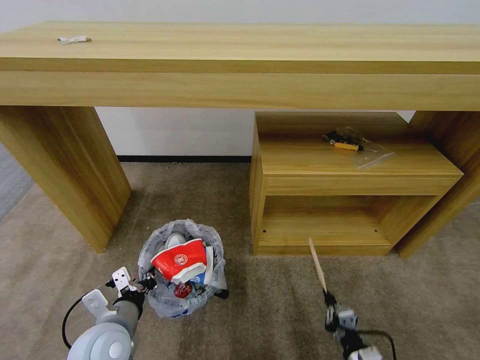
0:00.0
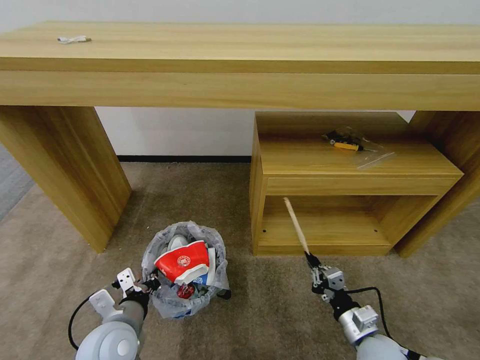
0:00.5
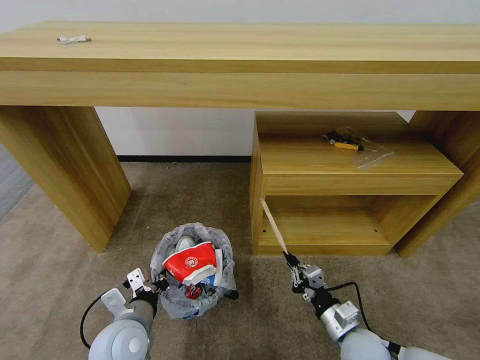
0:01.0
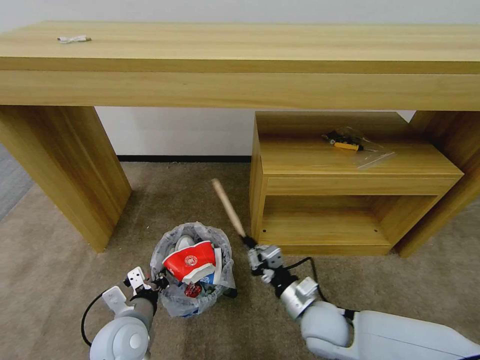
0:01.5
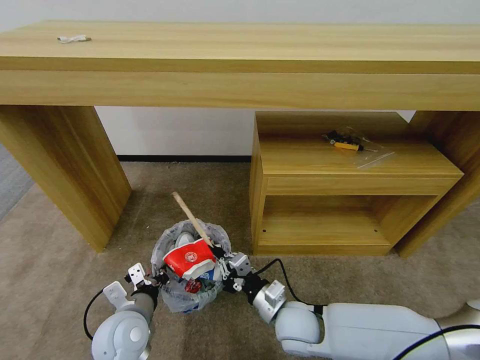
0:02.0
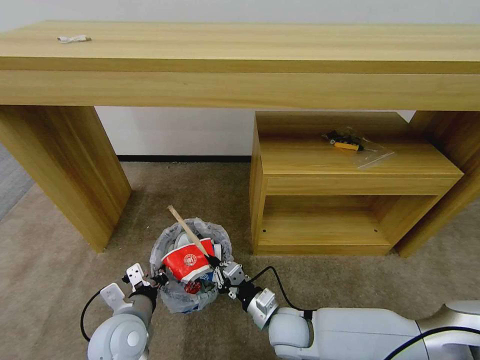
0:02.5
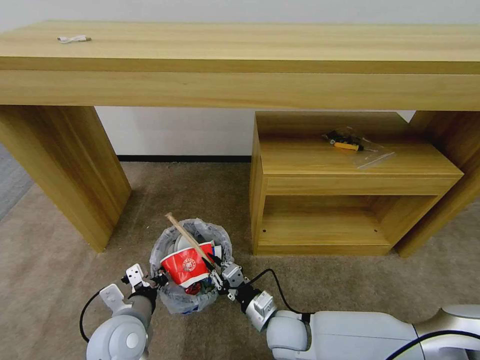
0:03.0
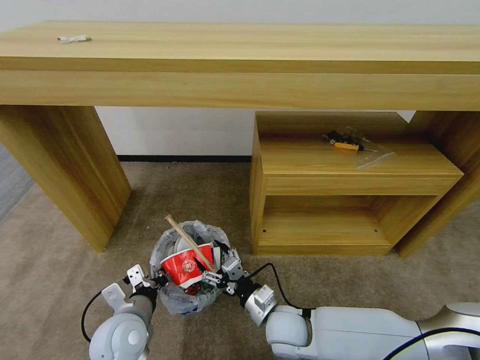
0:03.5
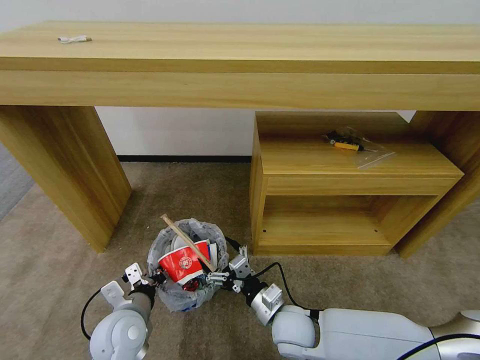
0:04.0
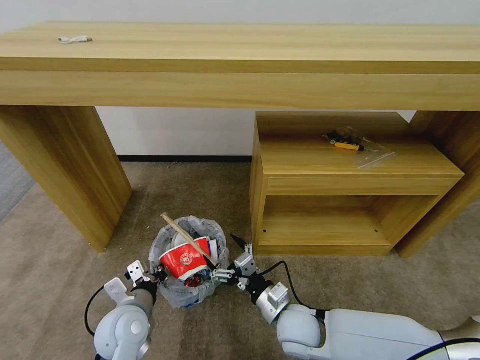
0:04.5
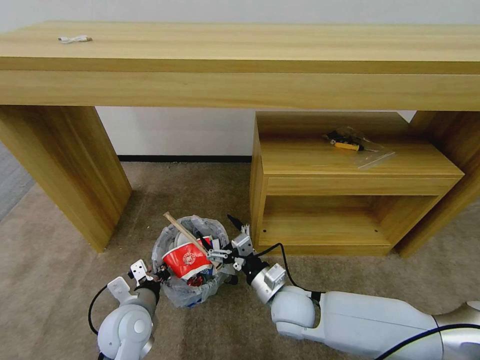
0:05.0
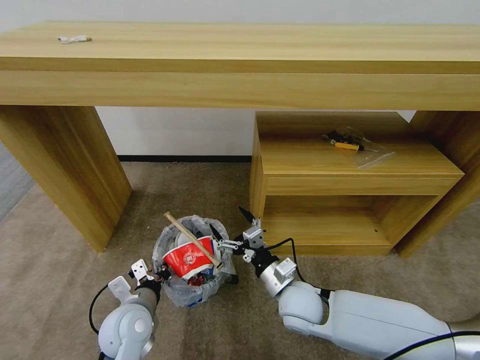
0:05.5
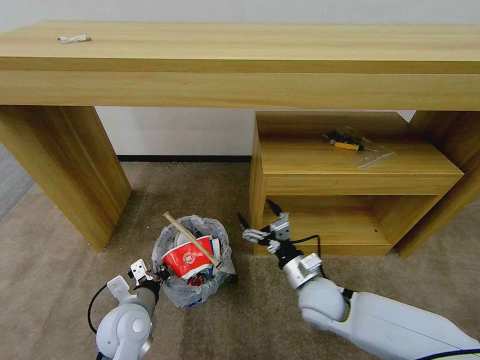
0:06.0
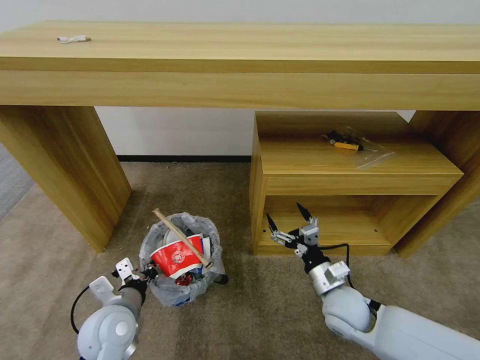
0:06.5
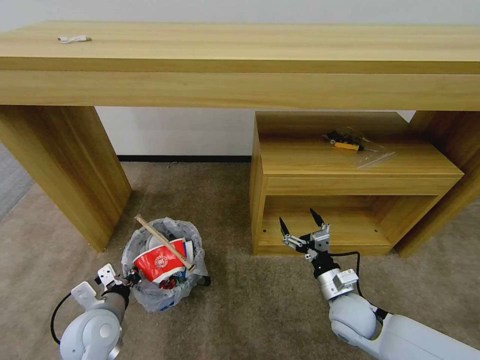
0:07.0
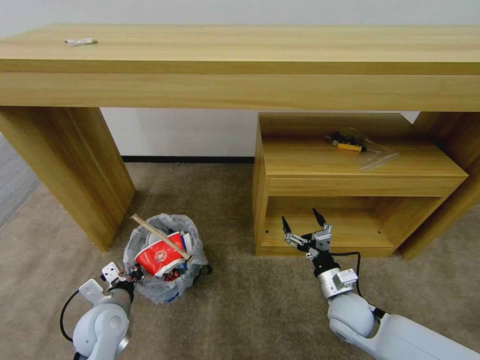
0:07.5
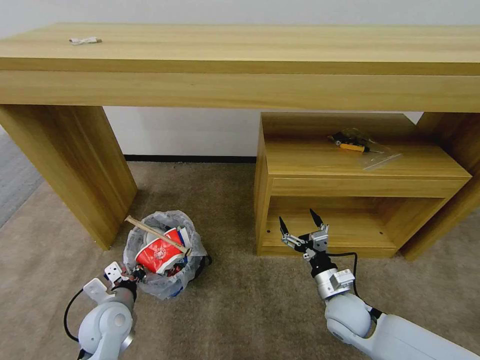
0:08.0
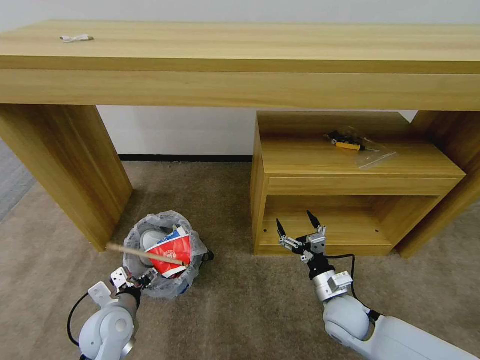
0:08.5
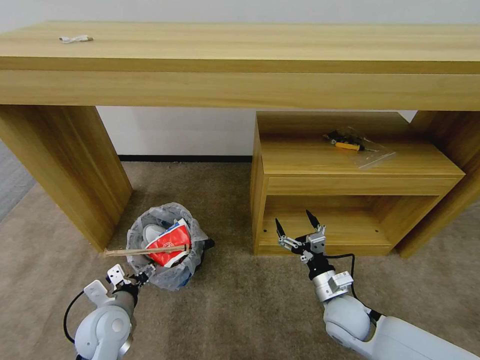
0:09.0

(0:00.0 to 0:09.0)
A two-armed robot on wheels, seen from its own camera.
Task of the whole recording: Pick up the trash bin and place the garbage on the floor into it.
0:00.0 - 0:02.0: The right gripper travels to the left, forward and upward by about 25 cm.
0:02.0 - 0:04.5: The right gripper opens its fingers.
0:04.5 - 0:07.0: The left gripper is displaced to the left by some 5 cm. The right gripper heads to the right, covering some 15 cm.
0:07.0 - 0:09.0: The left gripper opens.

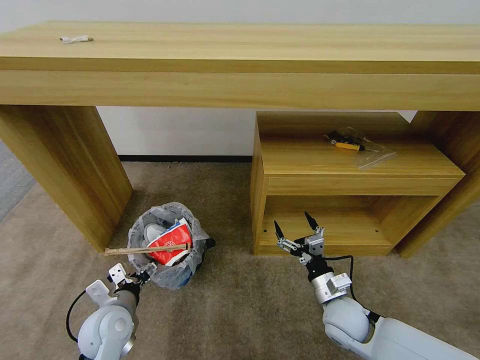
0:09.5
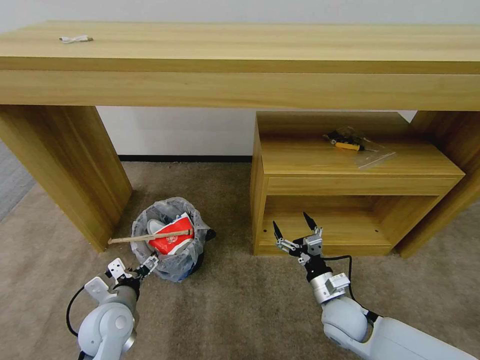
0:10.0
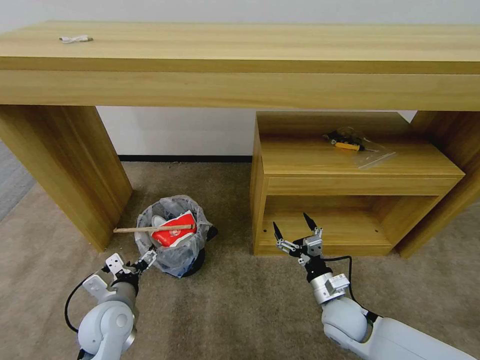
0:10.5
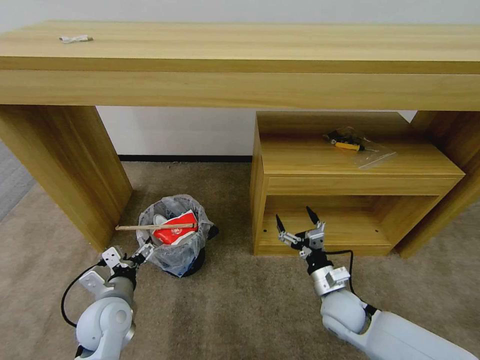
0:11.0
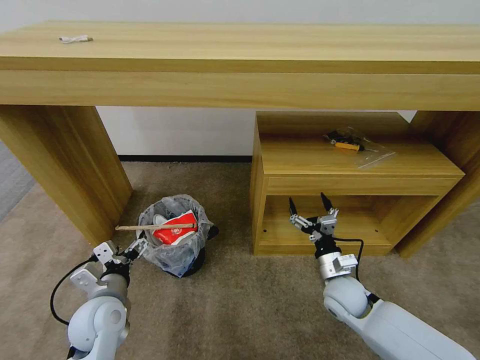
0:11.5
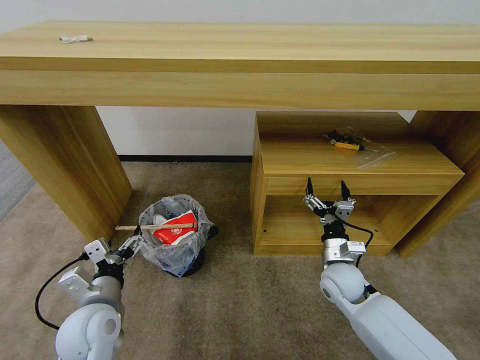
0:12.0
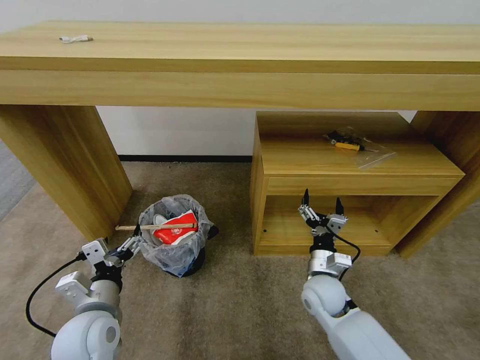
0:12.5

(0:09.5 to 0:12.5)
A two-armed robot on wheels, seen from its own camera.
Task of the whole recording: Pick up the trash bin and place the garbage on the floor into it.
0:09.5 - 0:11.0: The grippers move only a little.
0:11.0 - 0:12.5: The left gripper travels upward by some 5 cm, while the right gripper changes place by about 5 cm.

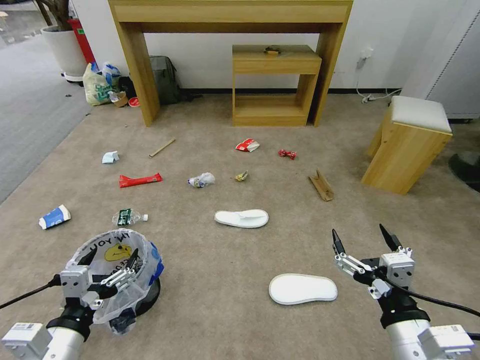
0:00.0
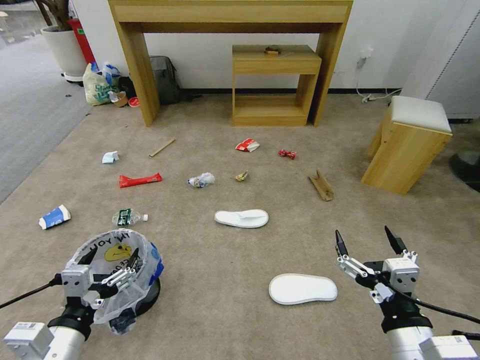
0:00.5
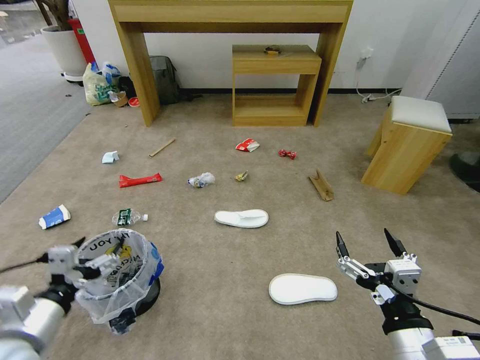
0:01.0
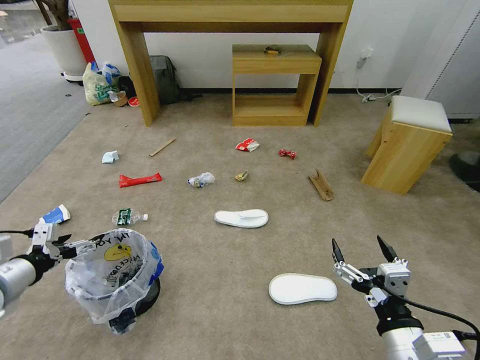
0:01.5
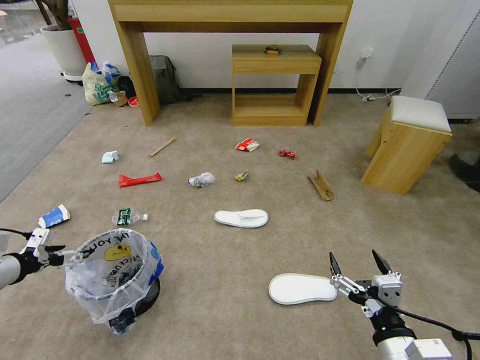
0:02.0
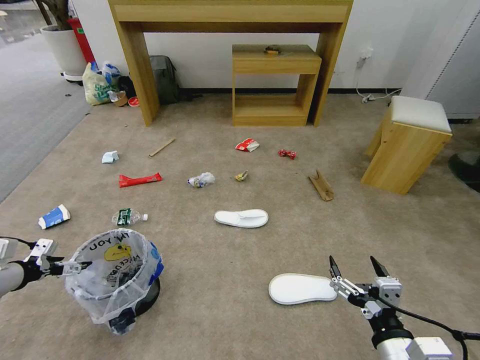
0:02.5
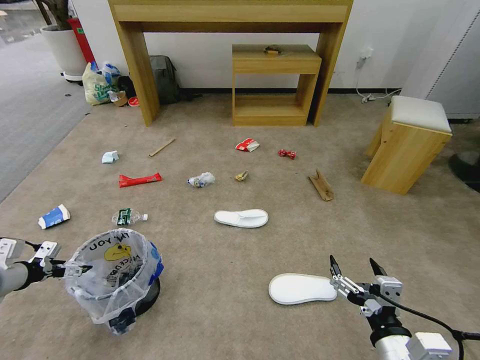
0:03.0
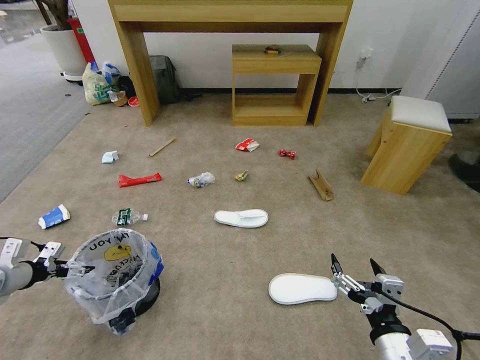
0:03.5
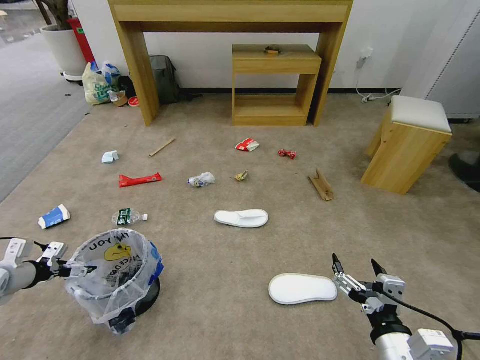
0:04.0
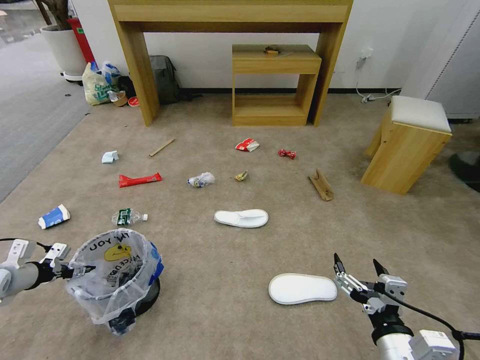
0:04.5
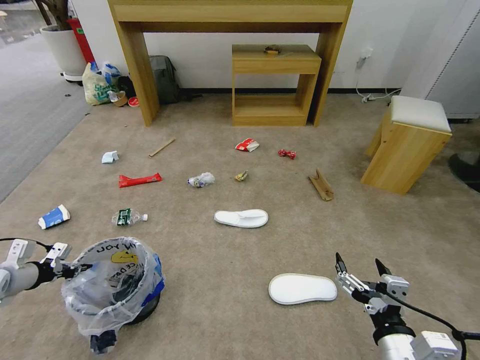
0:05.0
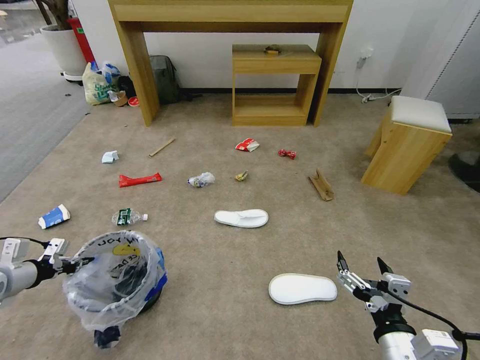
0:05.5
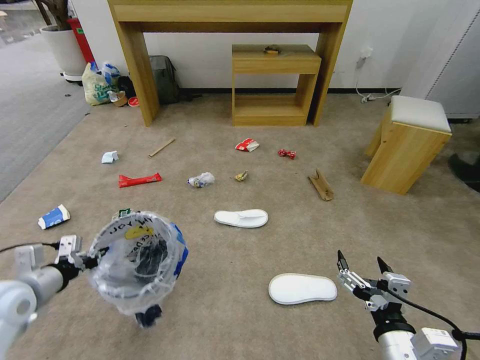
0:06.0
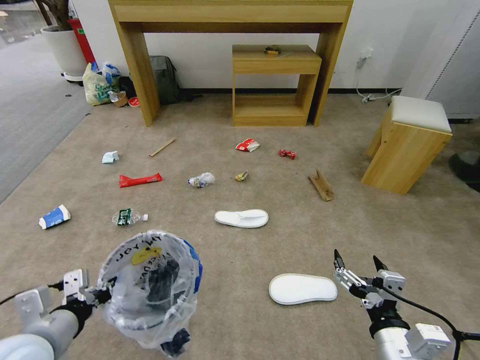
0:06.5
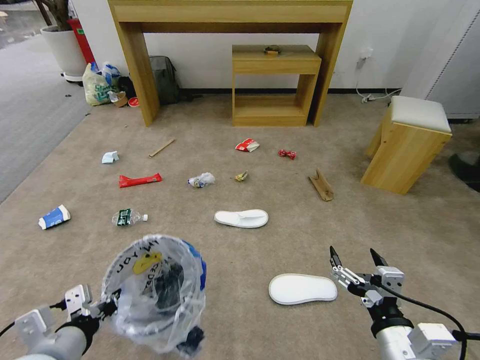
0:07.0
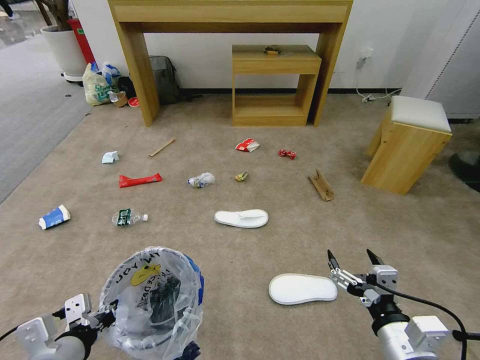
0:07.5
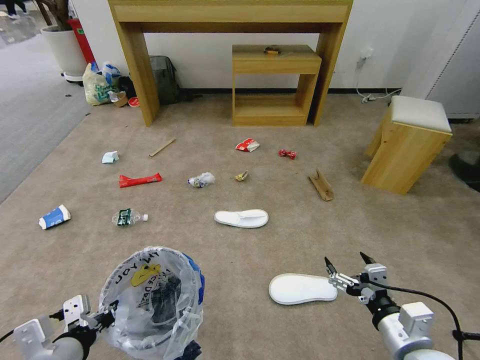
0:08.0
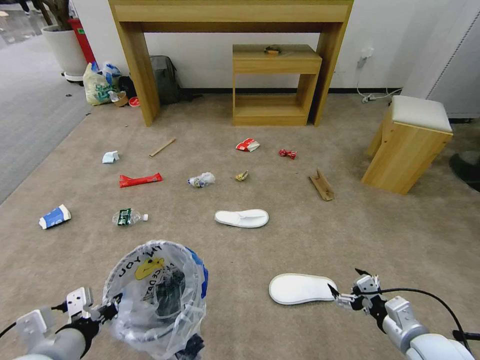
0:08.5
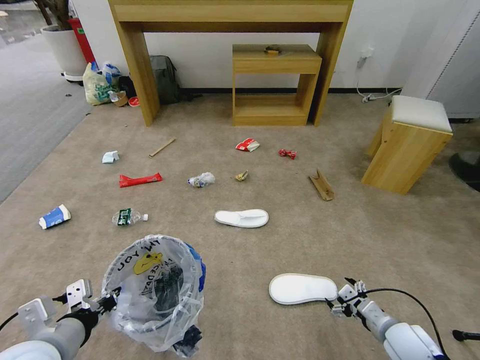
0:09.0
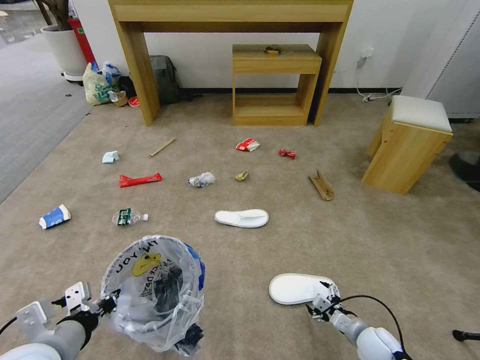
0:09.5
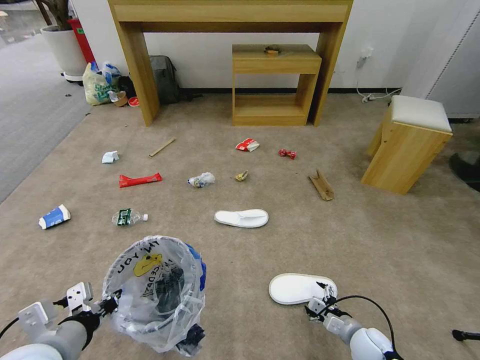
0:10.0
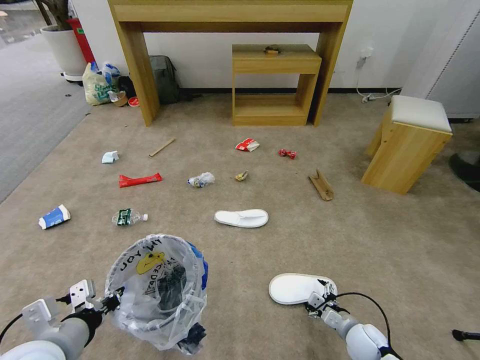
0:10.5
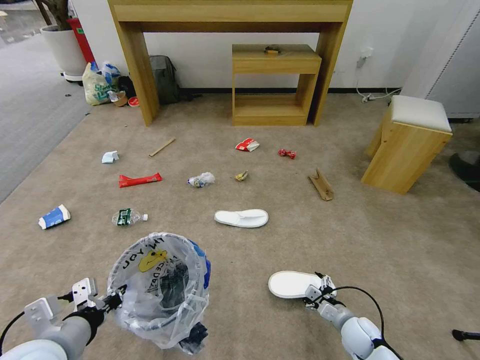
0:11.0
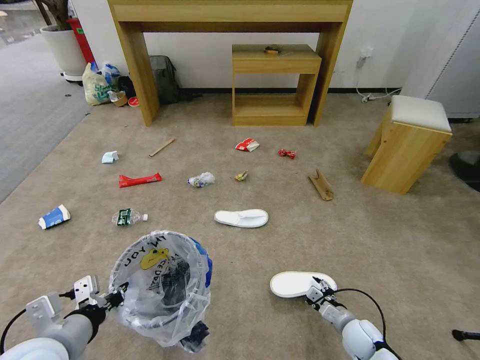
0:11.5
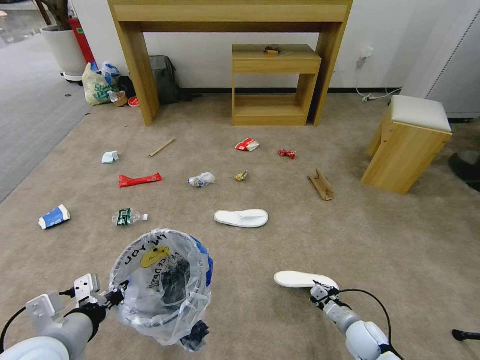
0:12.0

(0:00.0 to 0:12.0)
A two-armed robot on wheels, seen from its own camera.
Task of the whole recording: Pick up the trash bin and place the garbage on the floor into it.
0:02.0 - 0:04.0: The left gripper travels downward by some 5 cm.
0:04.0 - 0:06.0: The left gripper travels to the right and backward by roughly 15 cm, and closes its fingers.
0:06.0 - 0:08.0: The right gripper ends up approximately 5 cm from where it was. Meanwhile the left gripper is displaced backward and to the right by approximately 15 cm.
0:08.0 - 0:10.0: The right gripper travels downward by about 20 cm.
0:10.0 - 0:12.0: The right gripper closes.

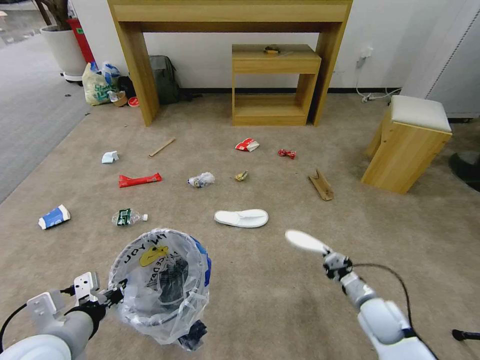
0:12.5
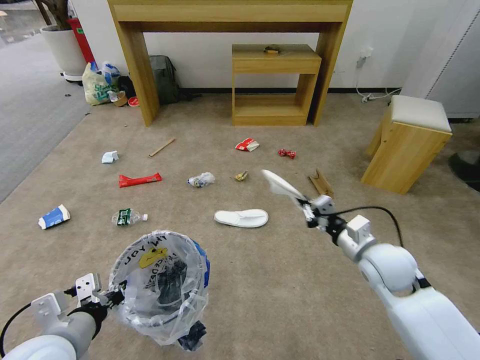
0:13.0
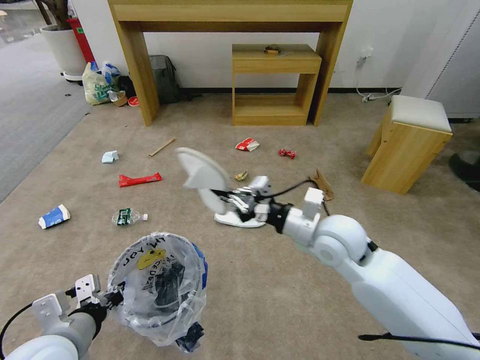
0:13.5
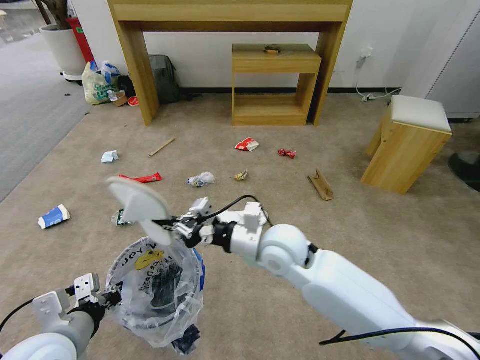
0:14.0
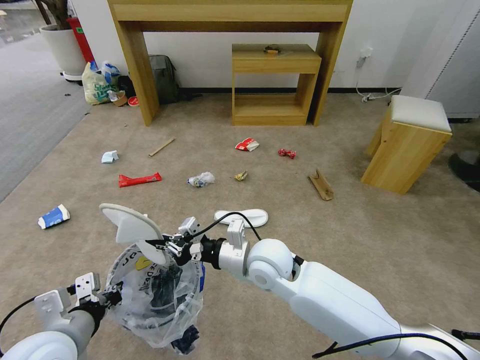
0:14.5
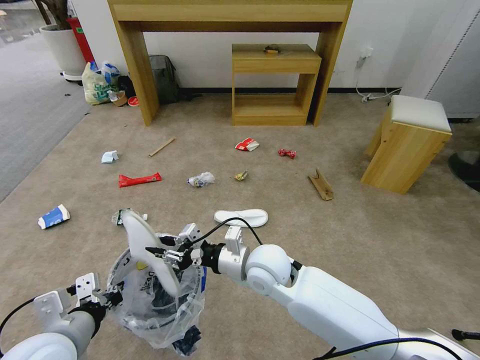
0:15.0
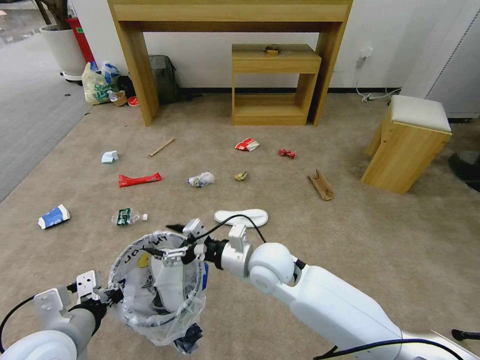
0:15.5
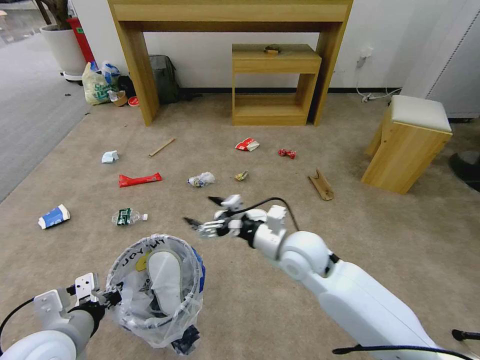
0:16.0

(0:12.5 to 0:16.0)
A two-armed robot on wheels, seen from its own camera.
Task of the whole recording: Pick up the trash bin and place the garbage on the floor into it.
0:12.5 - 0:14.5: The right gripper heads to the left and upward, covering roughly 35 cm.
0:14.5 - 0:16.0: The right gripper goes some 10 cm to the right, and opens.
